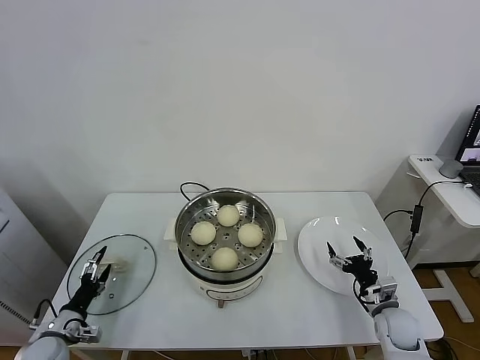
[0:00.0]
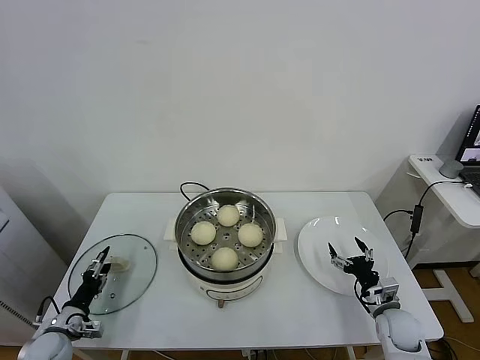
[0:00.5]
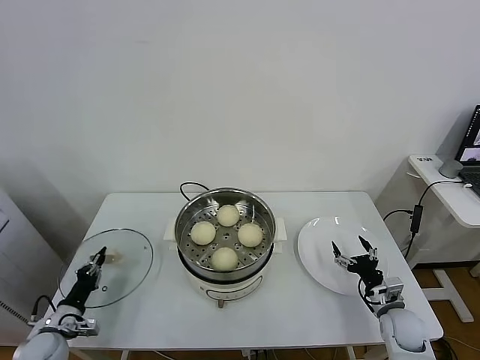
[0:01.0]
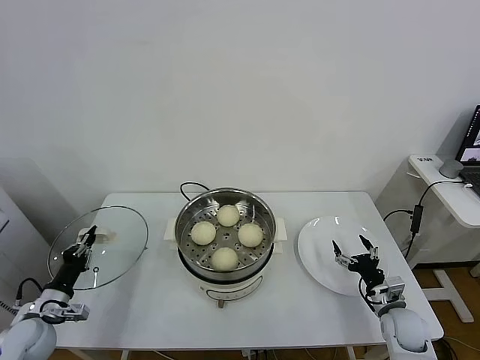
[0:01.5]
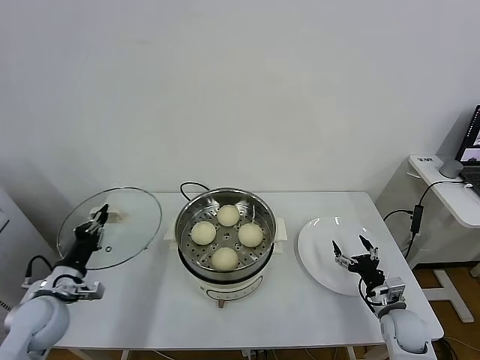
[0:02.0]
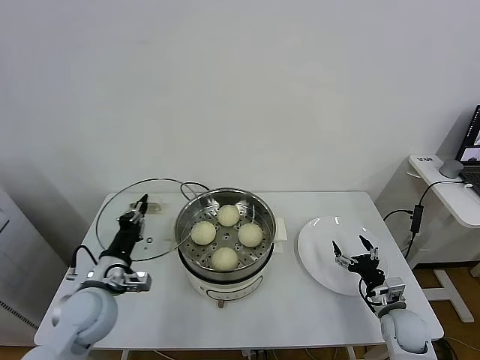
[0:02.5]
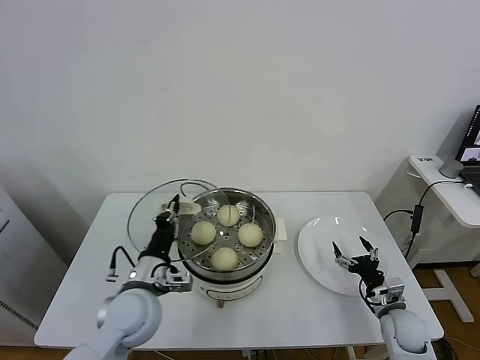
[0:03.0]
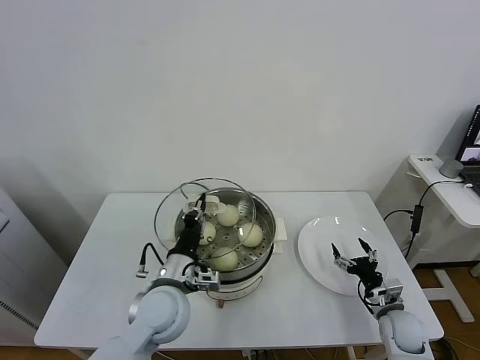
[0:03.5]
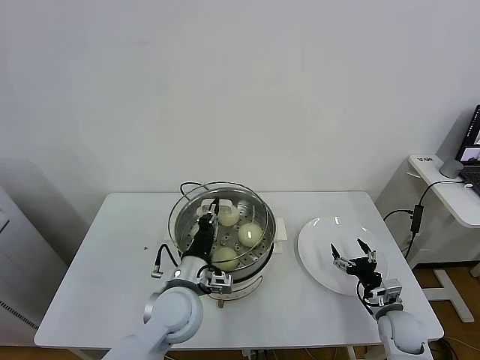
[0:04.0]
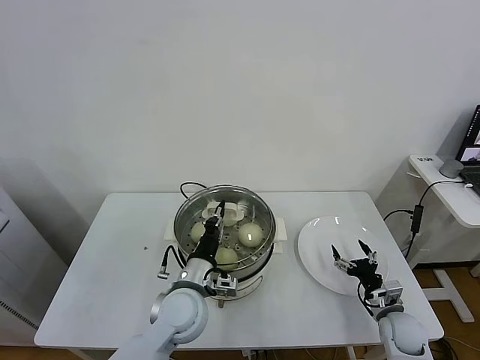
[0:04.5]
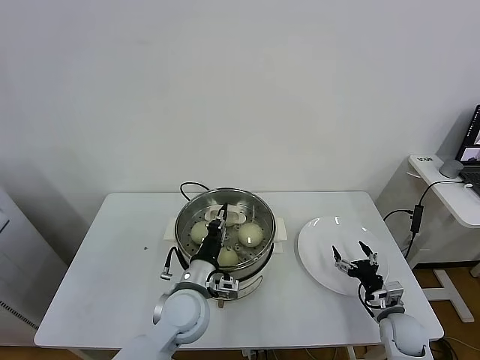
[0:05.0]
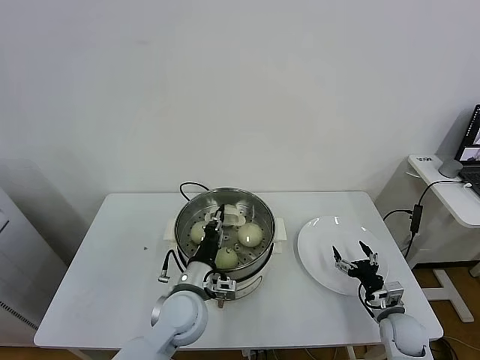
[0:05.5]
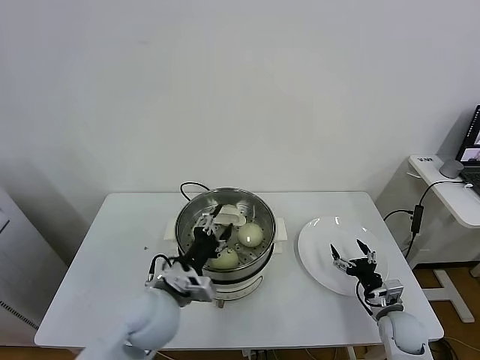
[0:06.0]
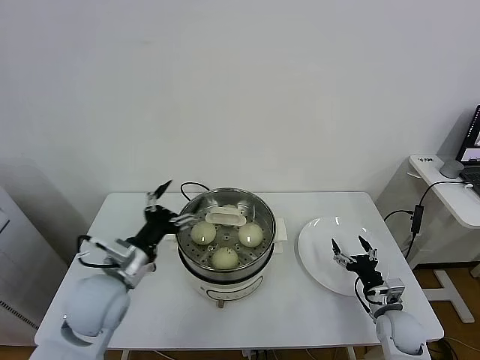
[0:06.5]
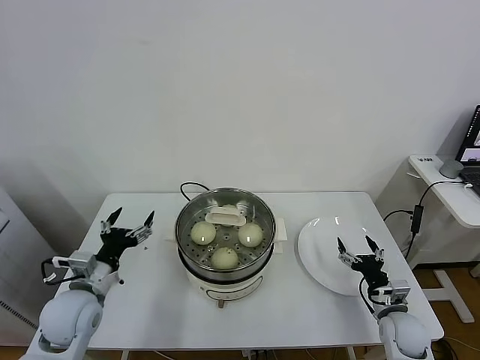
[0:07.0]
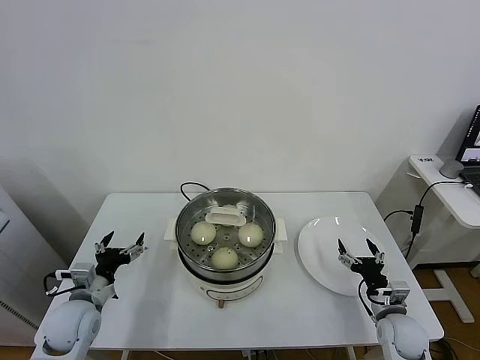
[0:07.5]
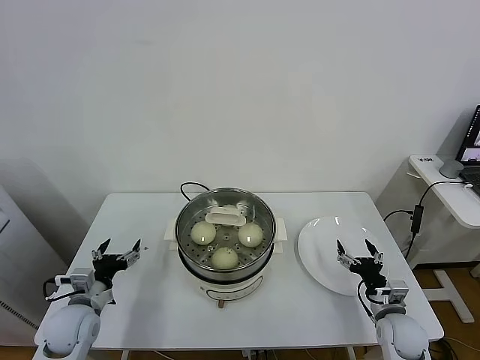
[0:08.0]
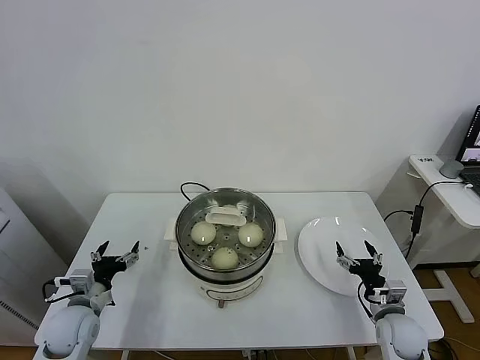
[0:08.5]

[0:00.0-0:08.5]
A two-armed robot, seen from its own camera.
Task of the whole recording: take steamed baozi put them in steamer.
Step, 0:01.5 to 0:06.0: Place the pot lid on the steamer with left gripper.
0:00.0 to 0:02.0: The left gripper shifts approximately 15 cm upward, and closes its fingers.
0:02.0 to 0:04.0: The left gripper moves to the right, about 30 cm.
0:04.0 to 0:06.5: The left gripper shifts roughly 15 cm to the left and upward, and opens.
0:06.5 to 0:08.5: The left gripper moves downward and to the left, some 20 cm.

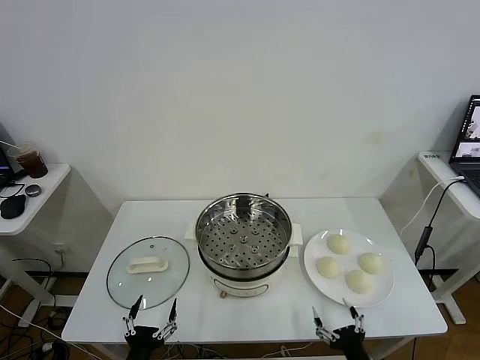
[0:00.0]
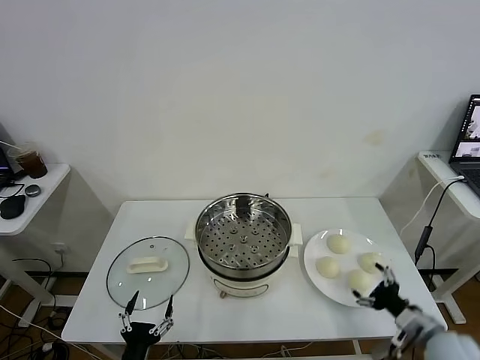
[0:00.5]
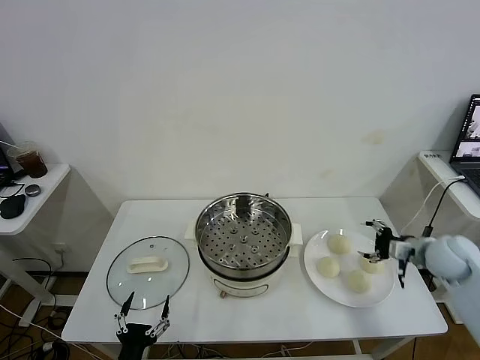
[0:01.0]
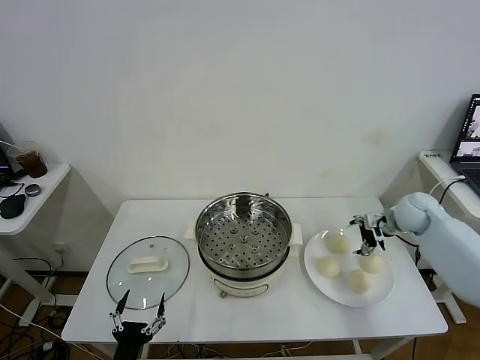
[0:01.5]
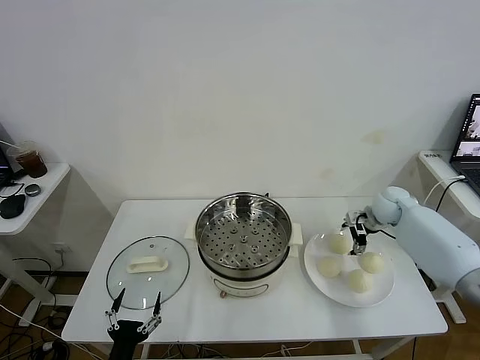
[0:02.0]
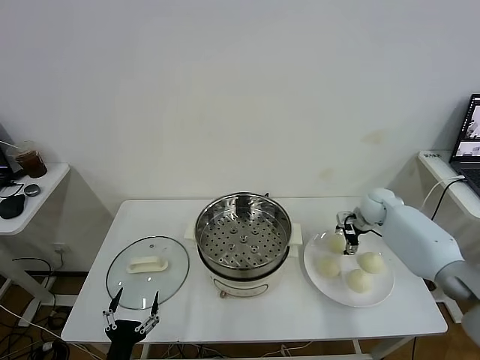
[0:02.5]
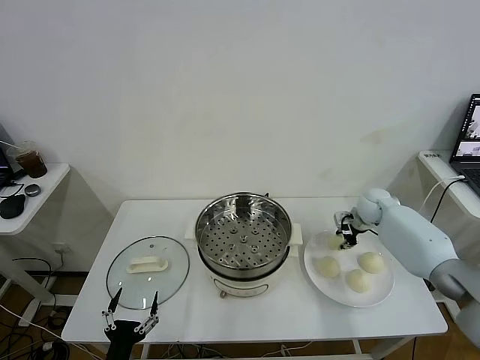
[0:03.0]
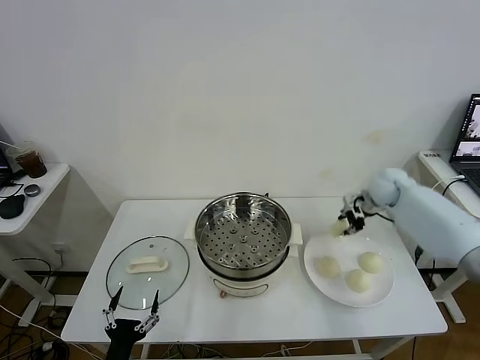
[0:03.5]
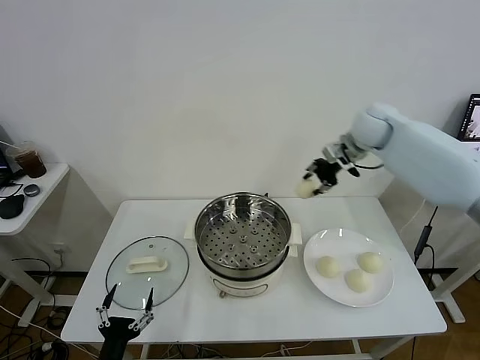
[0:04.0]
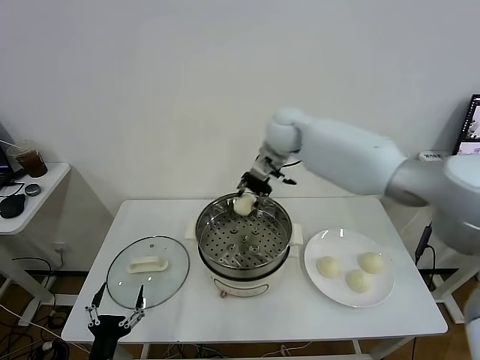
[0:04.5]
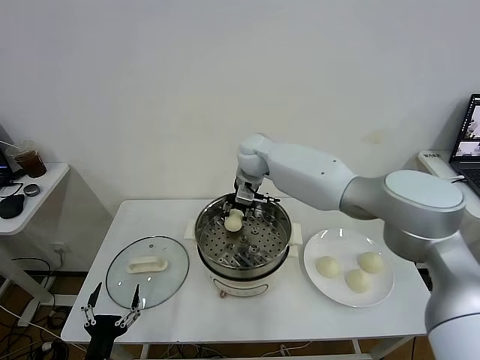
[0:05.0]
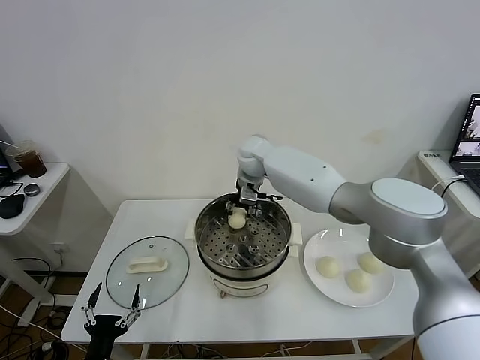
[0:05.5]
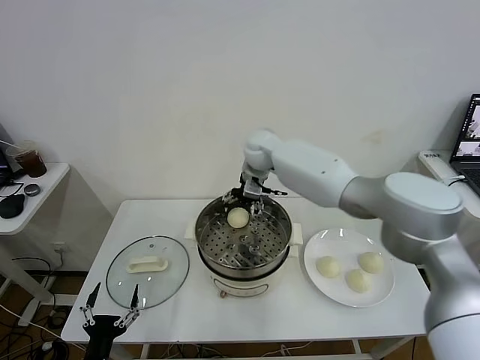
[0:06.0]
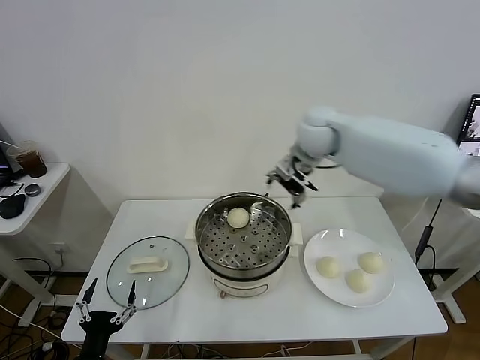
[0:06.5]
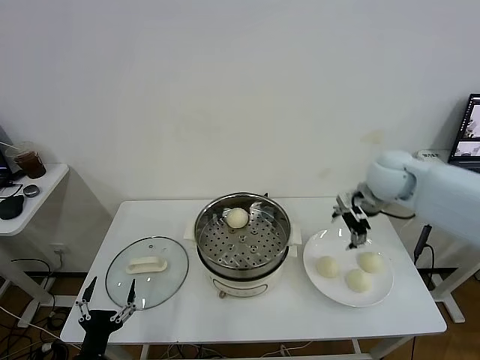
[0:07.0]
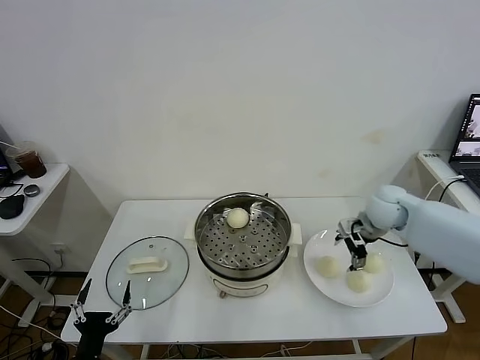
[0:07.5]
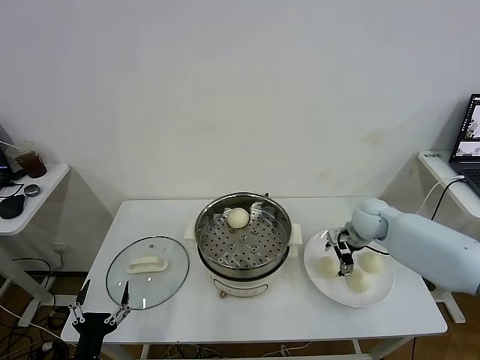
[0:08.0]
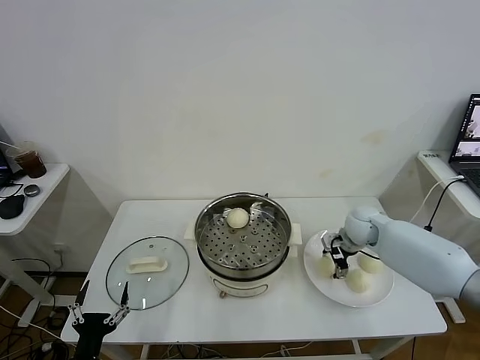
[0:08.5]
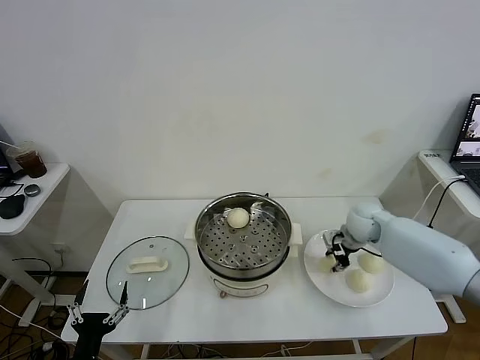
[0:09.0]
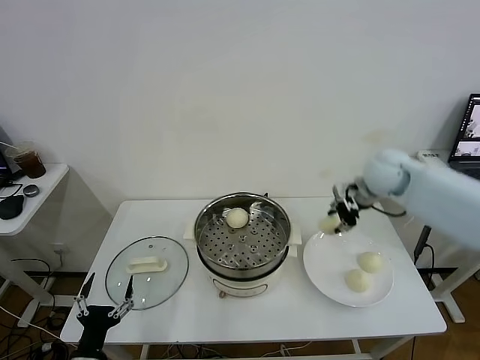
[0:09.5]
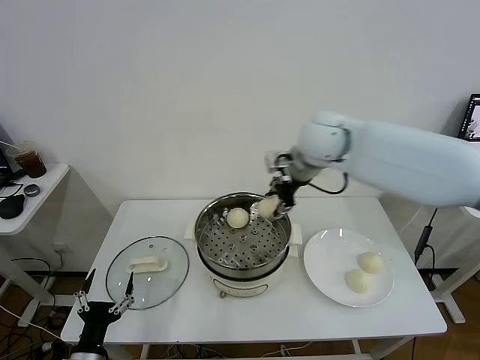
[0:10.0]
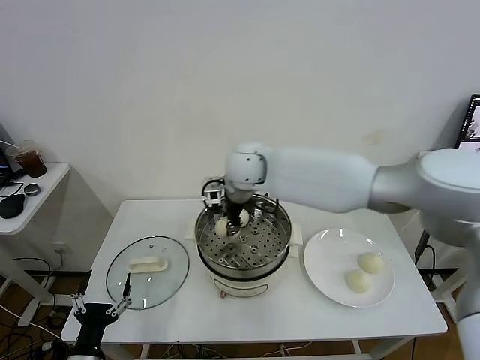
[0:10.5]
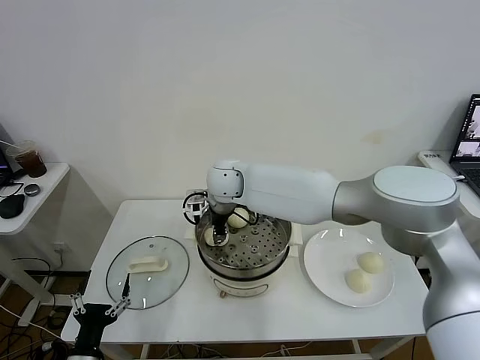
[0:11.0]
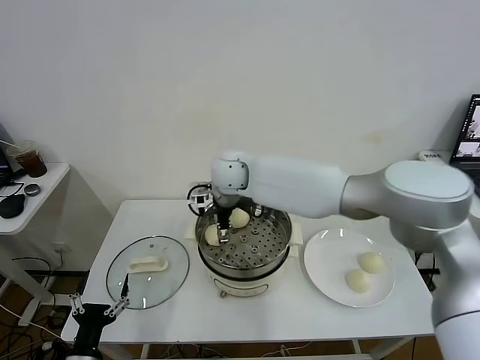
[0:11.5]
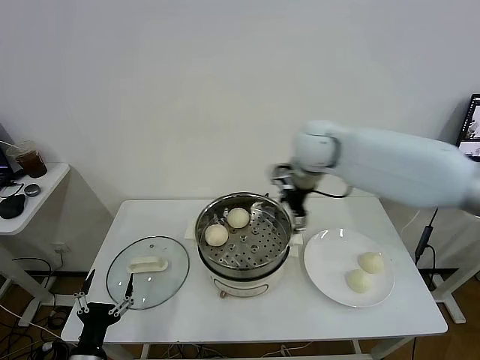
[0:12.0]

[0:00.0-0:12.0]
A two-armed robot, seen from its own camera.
Task of the whole recording: take steamed baozi put them in steamer.
Step, 0:00.0 to 0:02.5: Grasp the baozi in the plate with right gripper.
Step, 0:03.0 to 0:06.0: Place the baozi on the steamer with right gripper.
Step, 0:06.5 to 0:08.5: Grasp the baozi in the plate with right gripper.
Step, 0:09.0 to 0:11.5: Place the baozi on the steamer with right gripper.
0:02.0 to 0:04.0: The right gripper goes approximately 30 cm upward and to the left, and closes its fingers.
0:04.0 to 0:06.0: The right gripper heads to the left, covering approximately 15 cm, and opens its fingers.
0:06.0 to 0:08.0: The right gripper moves to the right, downward and backward, about 30 cm.
0:08.0 to 0:10.0: The right gripper shifts roughly 30 cm upward and to the left, and closes up.
0:10.0 to 0:12.0: The right gripper goes about 10 cm to the right, and opens its fingers.

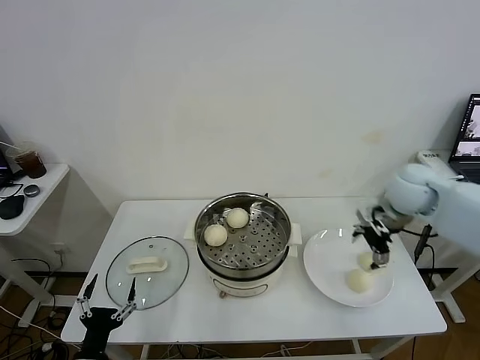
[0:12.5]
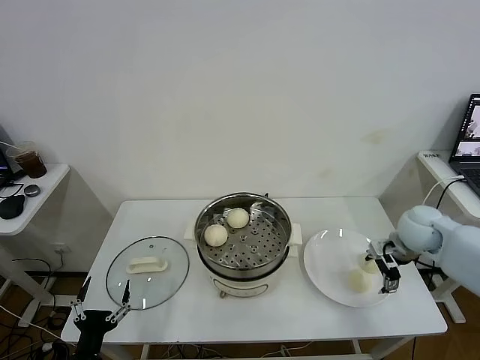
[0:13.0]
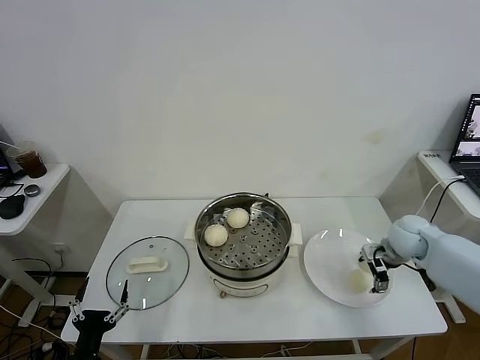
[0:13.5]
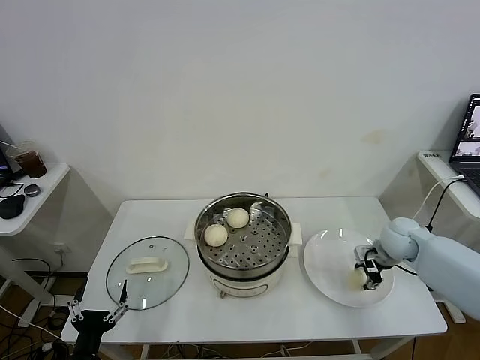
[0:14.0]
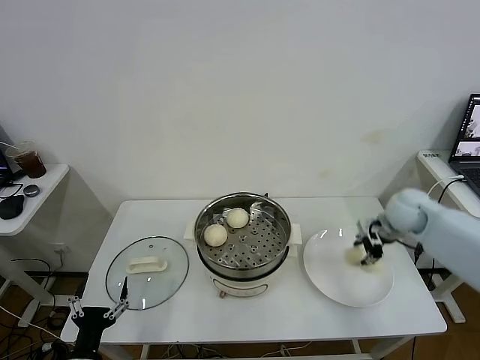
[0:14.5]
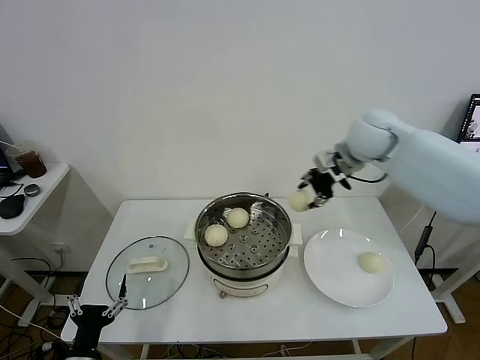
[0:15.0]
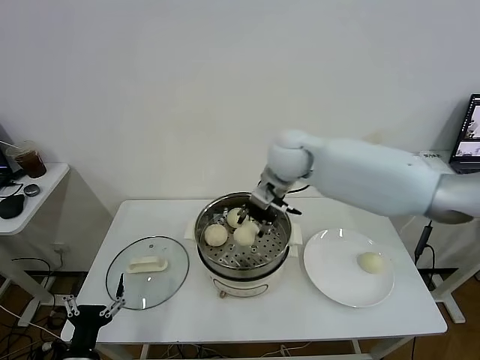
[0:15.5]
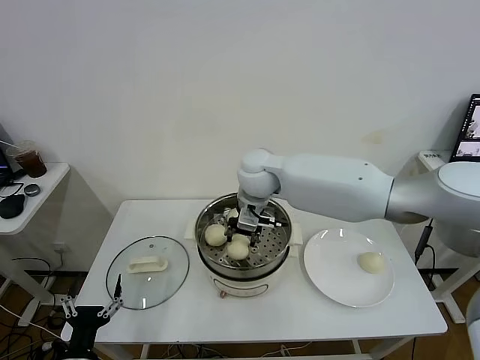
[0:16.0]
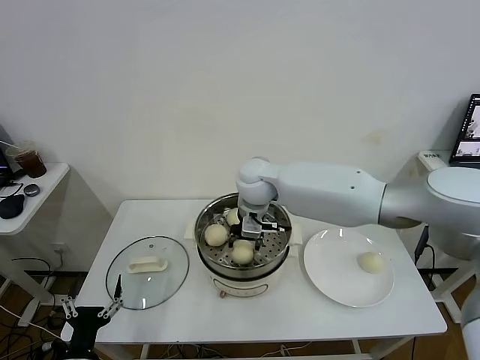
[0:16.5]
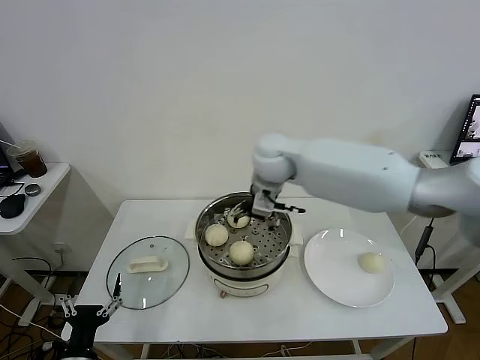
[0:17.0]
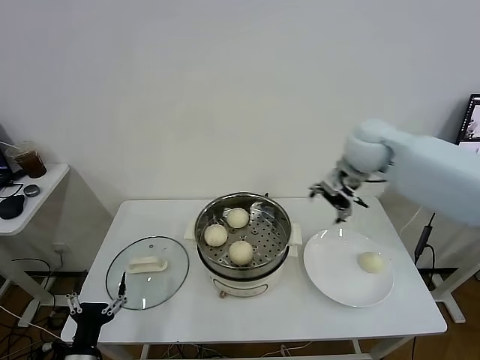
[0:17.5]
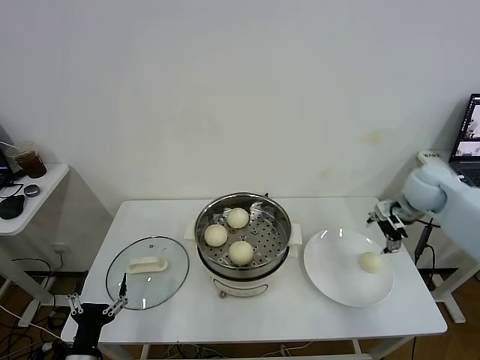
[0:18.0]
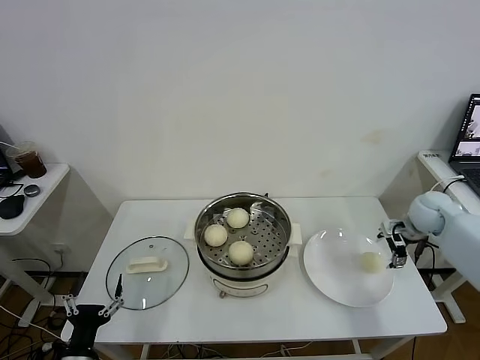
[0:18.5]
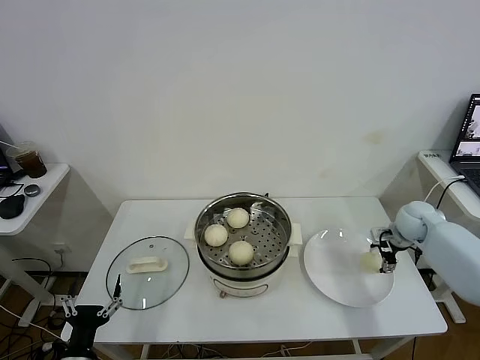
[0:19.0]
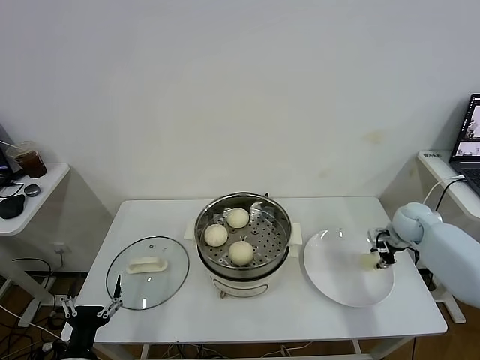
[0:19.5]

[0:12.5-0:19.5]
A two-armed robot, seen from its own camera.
Task of the whole recording: take steamed baozi put them in steamer.
Step, 0:12.5 to 0:14.0: Grasp the baozi in the plate with right gripper.
Step, 0:14.5 to 0:16.5: Place the baozi on the steamer with right gripper.
Step, 0:17.0 to 0:19.0: Grasp the baozi in the plate with right gripper.
0:12.5 to 0:14.5: The right gripper goes downward and returns, roughly 15 cm each way, and closes.
0:14.5 to 0:16.0: The right gripper goes roughly 35 cm to the left.
0:16.0 to 0:17.5: The right gripper moves to the right, about 25 cm, and opens.
0:17.5 to 0:19.5: The right gripper is displaced downward and to the right by approximately 25 cm, and closes.
